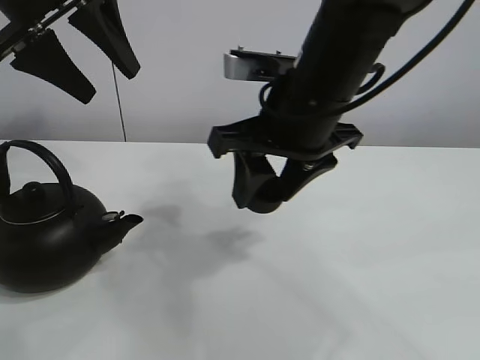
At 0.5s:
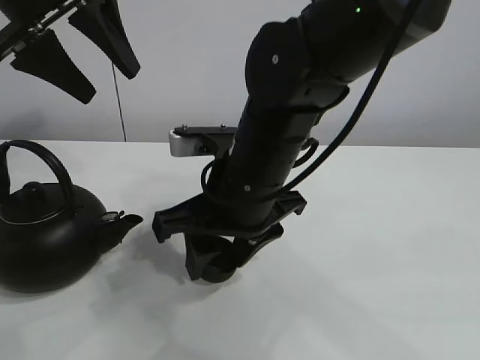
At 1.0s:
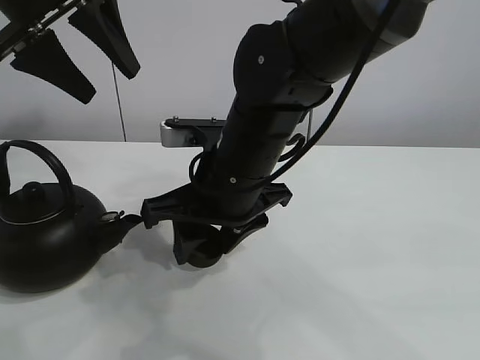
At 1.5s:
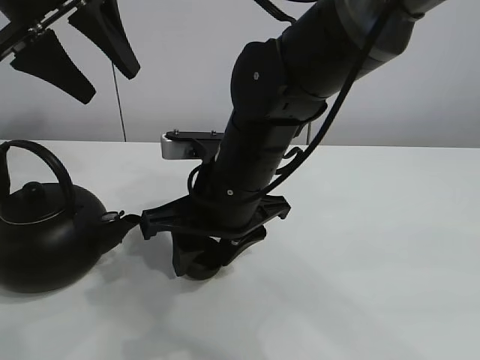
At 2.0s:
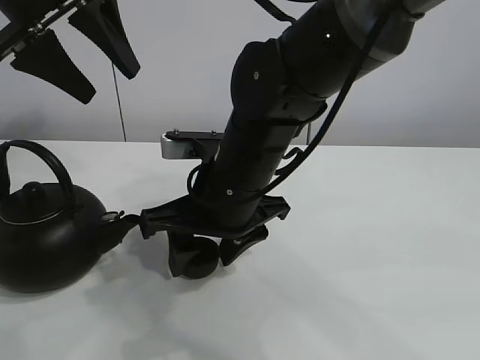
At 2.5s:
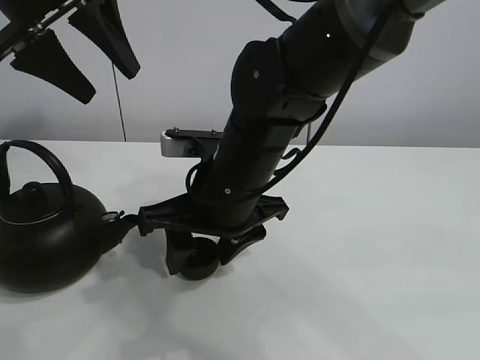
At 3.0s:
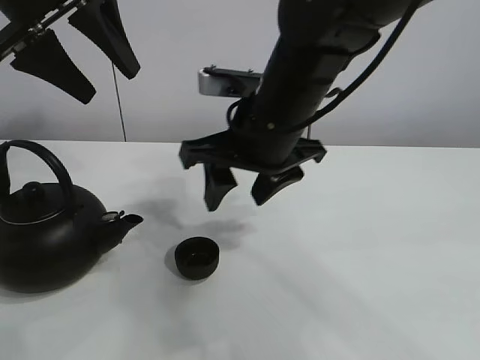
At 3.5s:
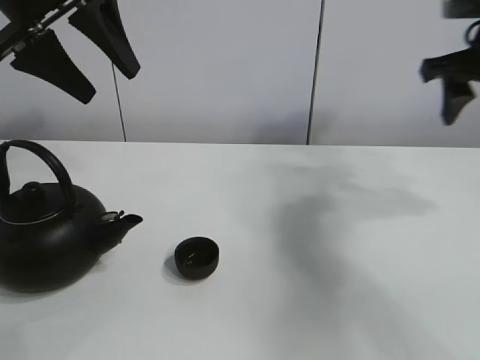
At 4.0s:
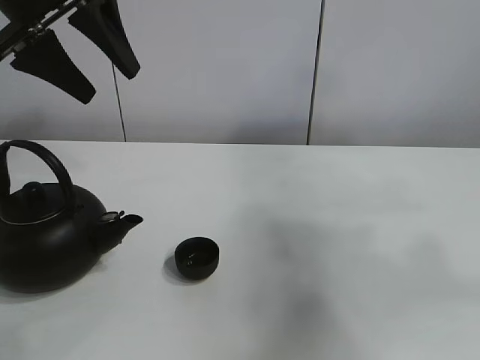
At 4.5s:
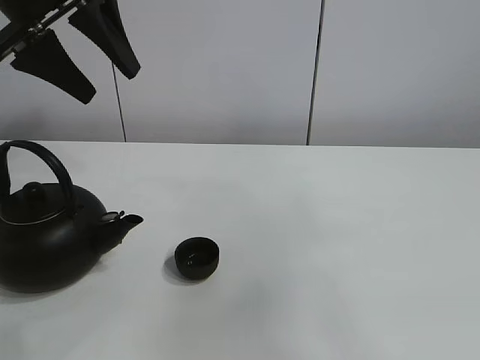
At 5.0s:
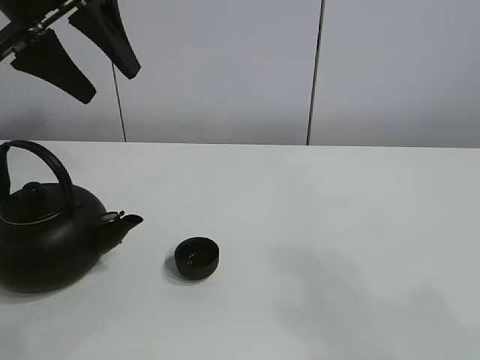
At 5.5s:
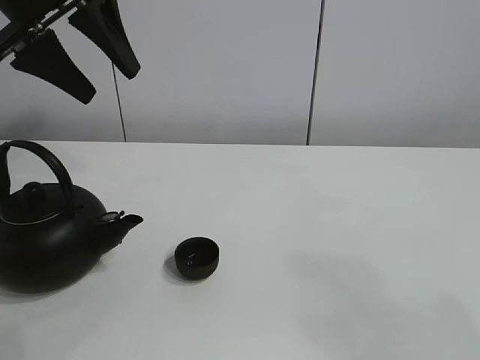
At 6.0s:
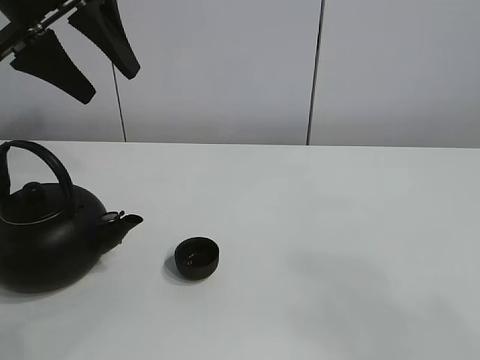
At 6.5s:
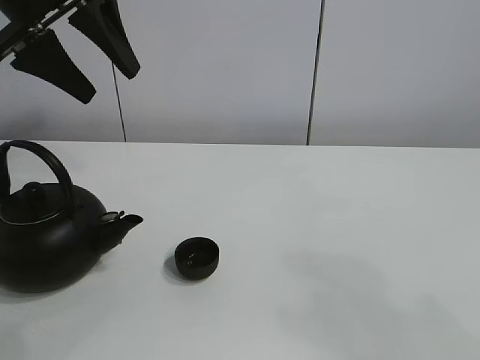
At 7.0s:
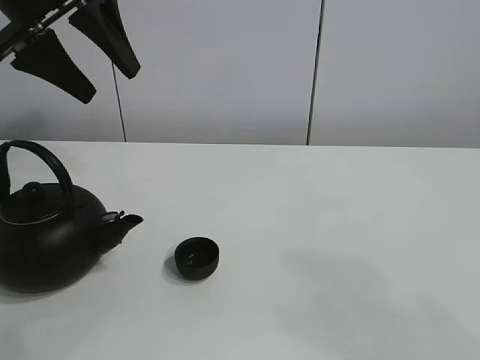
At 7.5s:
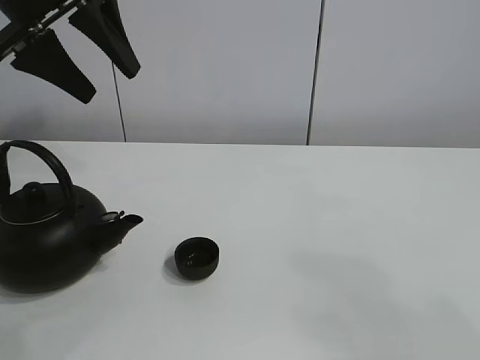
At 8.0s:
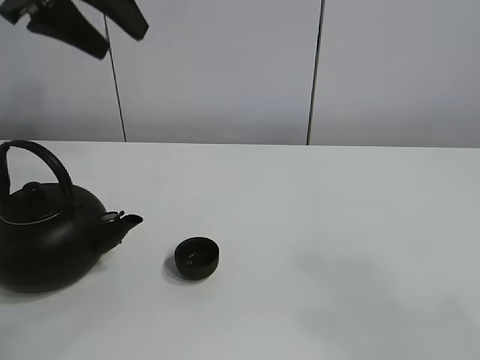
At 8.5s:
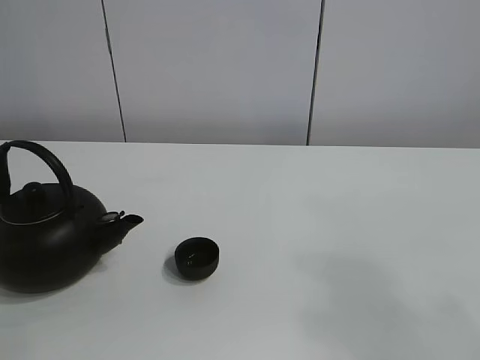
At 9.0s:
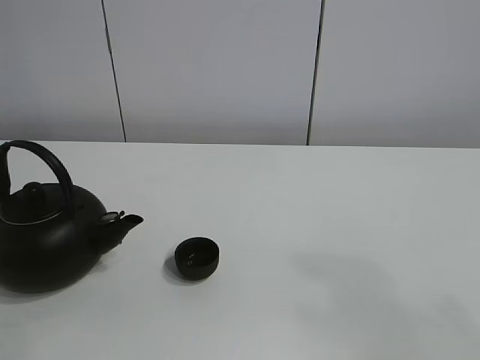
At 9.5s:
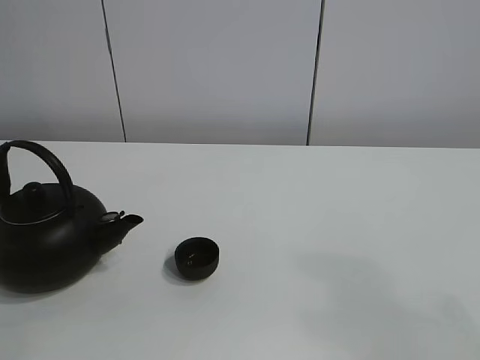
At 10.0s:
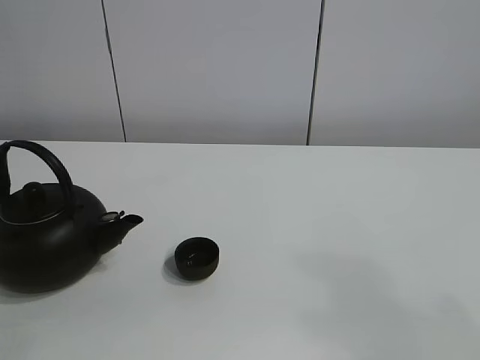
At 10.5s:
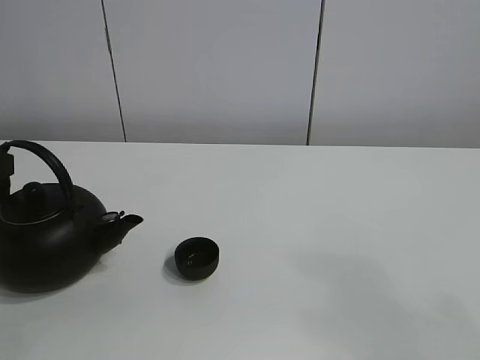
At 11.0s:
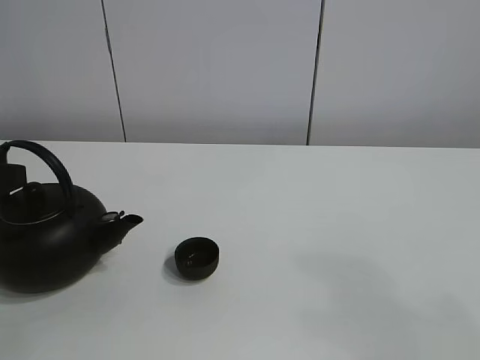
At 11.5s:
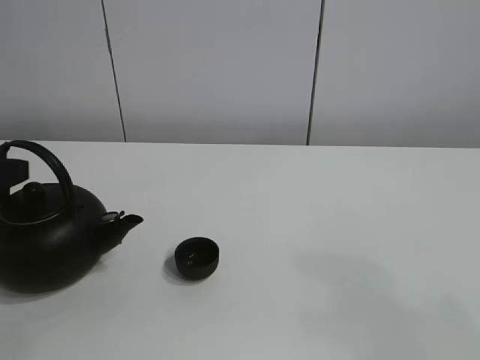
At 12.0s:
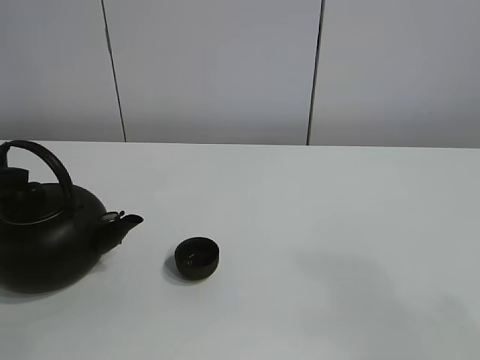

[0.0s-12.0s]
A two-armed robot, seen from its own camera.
Task of the whole recording: pour tea into the teacup.
Step, 0.0s to 1.5s: Place the teacup in the center of view with the right gripper.
0.0s to 2.0s: The right gripper heads downward and to the left, covering some 10 cm.
2.0s to 4.0s: The right gripper heads to the right and upward, covering roughly 50 cm.
4.0s to 6.0s: The right gripper is displaced backward and downward by approximately 25 cm.
8.0s to 10.0s: The left gripper heads downward, backward and to the left, covering roughly 25 cm.

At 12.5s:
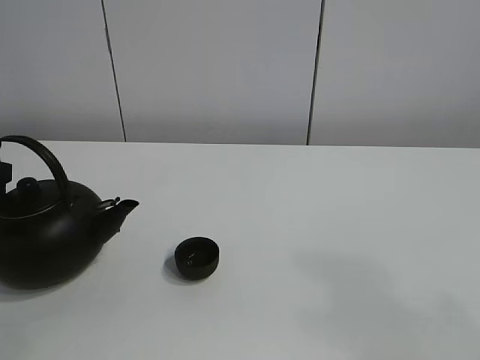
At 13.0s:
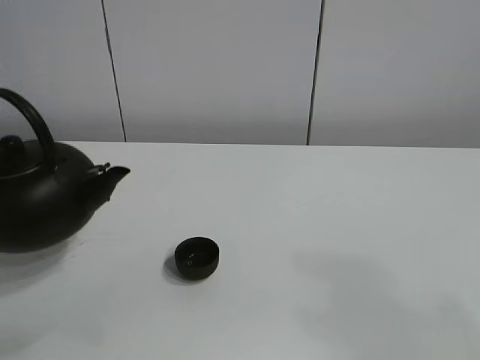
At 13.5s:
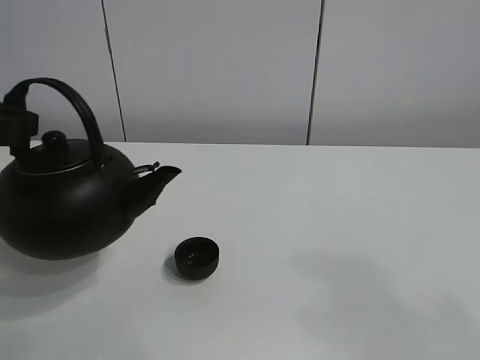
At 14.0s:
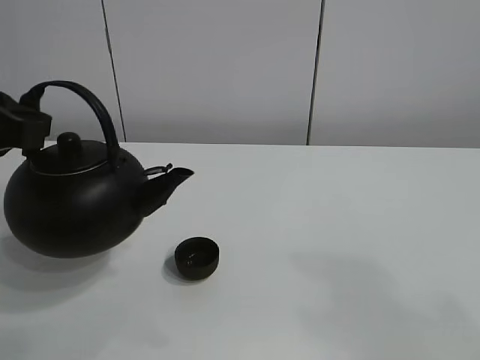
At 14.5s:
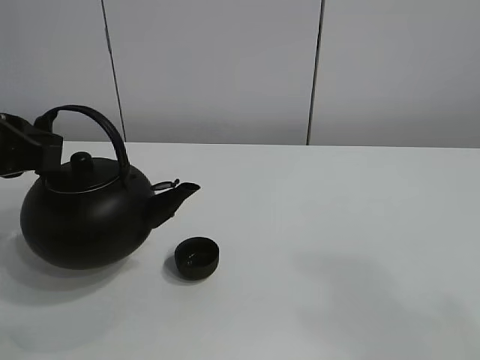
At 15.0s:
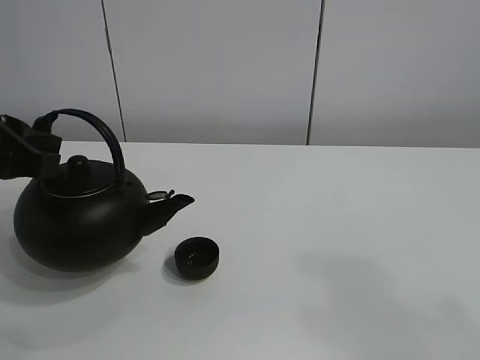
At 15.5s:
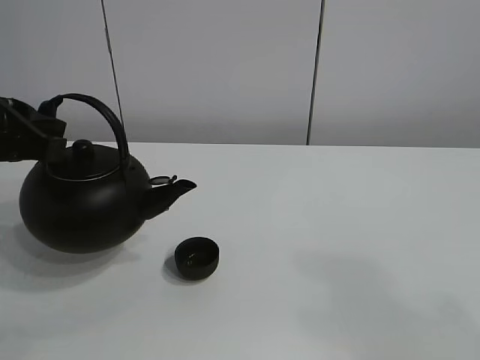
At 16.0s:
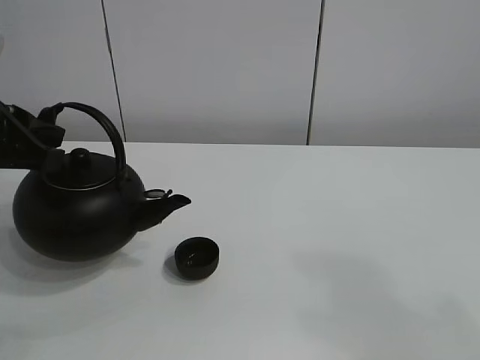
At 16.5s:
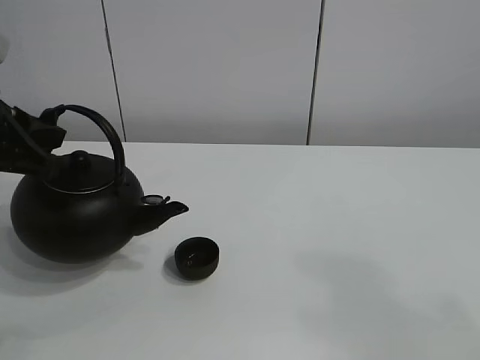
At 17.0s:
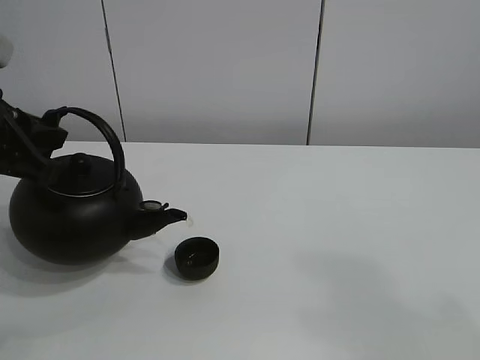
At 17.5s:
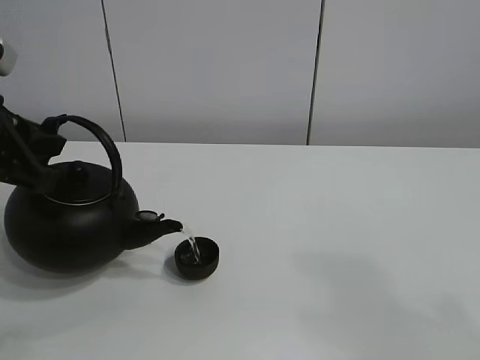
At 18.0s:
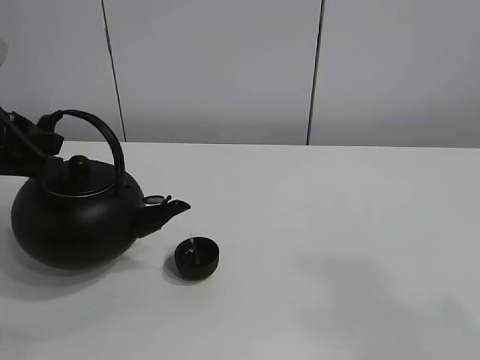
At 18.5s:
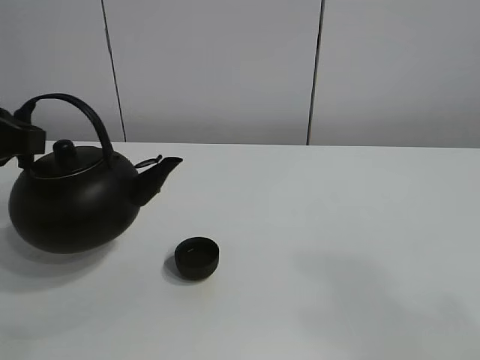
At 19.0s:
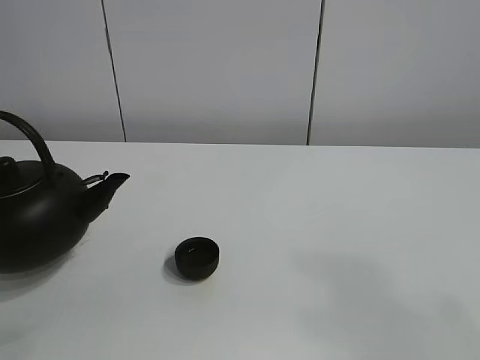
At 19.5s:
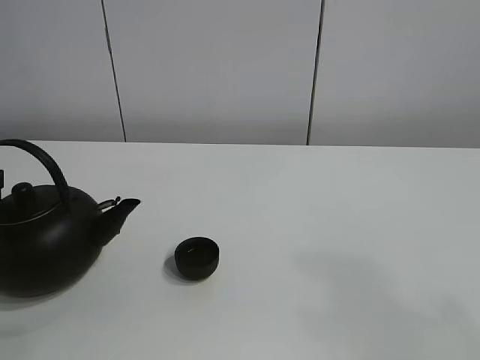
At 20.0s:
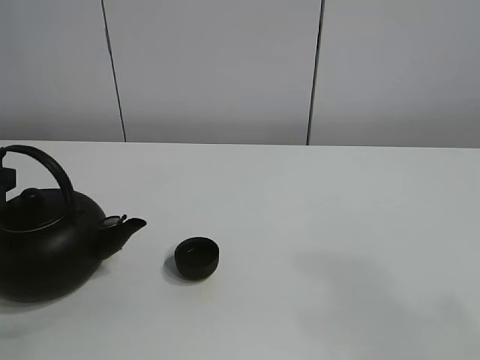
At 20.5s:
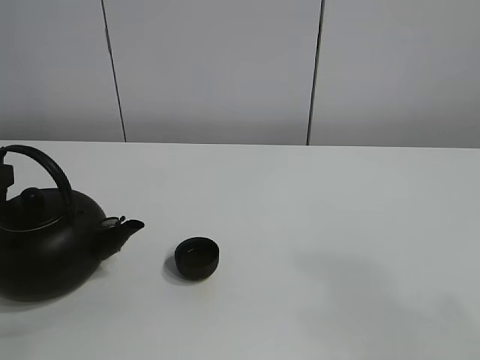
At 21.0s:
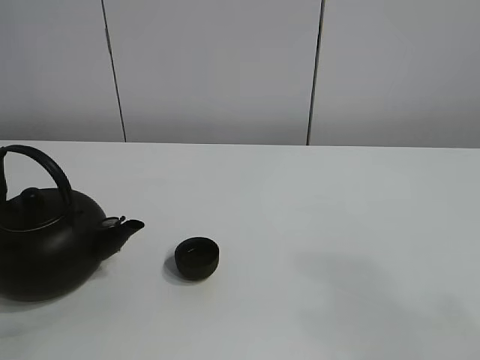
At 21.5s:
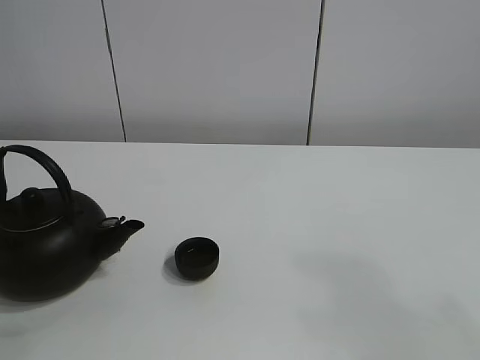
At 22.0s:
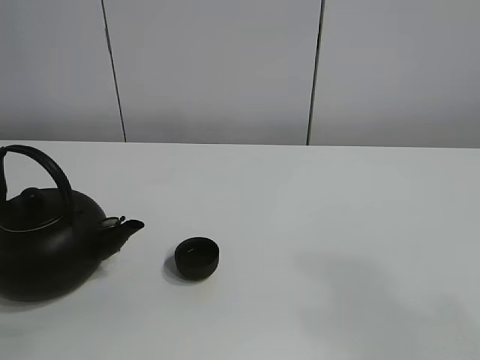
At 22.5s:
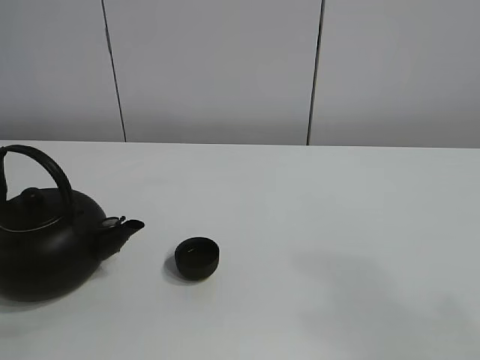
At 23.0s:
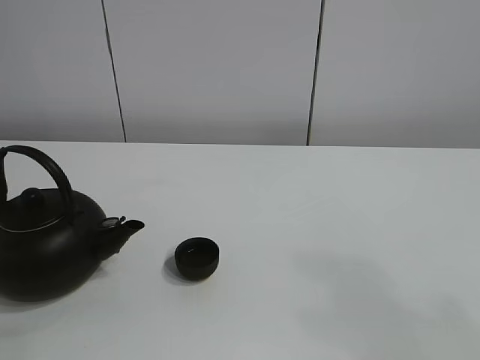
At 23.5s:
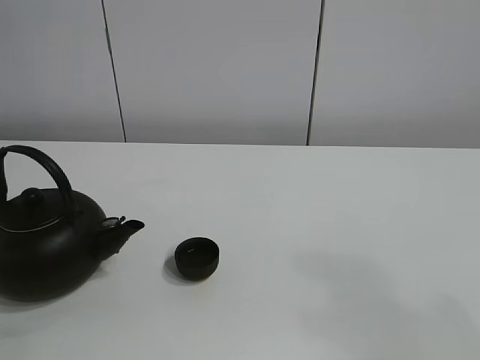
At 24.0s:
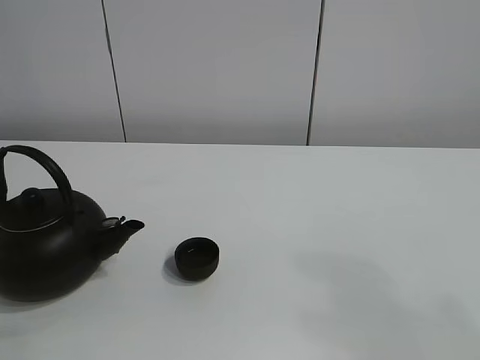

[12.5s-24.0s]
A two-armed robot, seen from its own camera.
Task of the whole recording: pour tea into the teacup.
Step, 13.0s to 18.0s: Pour tea into the teacup with the left gripper.
12.5s to 14.5s: The left gripper shifts roughly 5 cm to the right.
14.5s to 18.5s: There are only small adjustments of the grippers.
18.5s to 20.0s: The left gripper shifts by approximately 5 cm.
